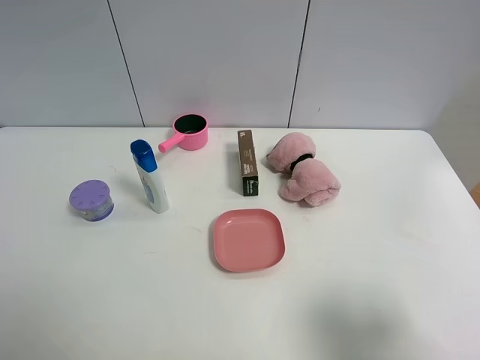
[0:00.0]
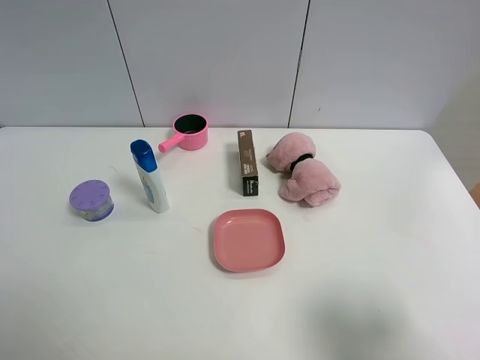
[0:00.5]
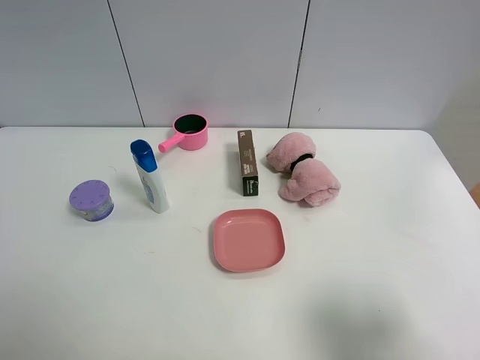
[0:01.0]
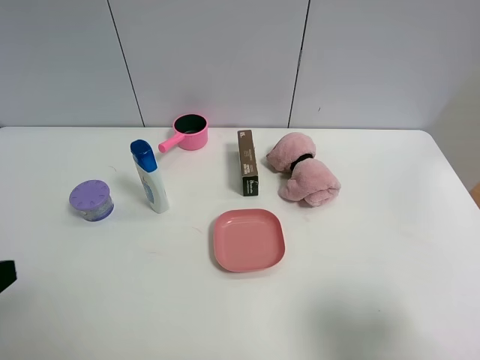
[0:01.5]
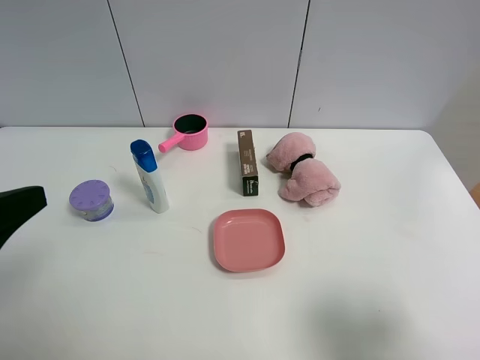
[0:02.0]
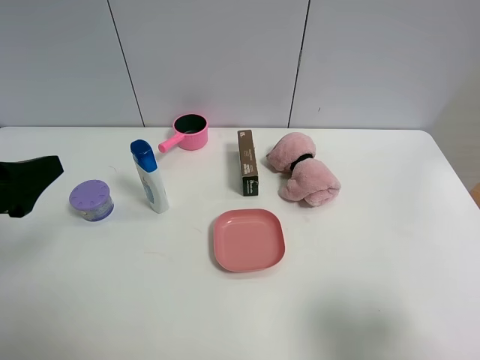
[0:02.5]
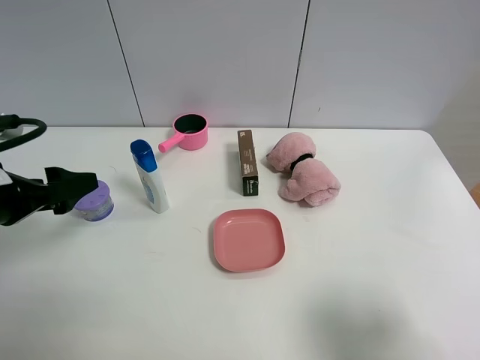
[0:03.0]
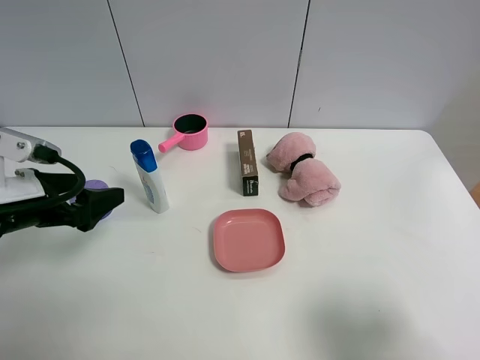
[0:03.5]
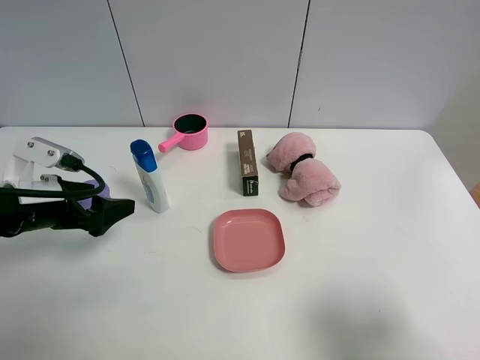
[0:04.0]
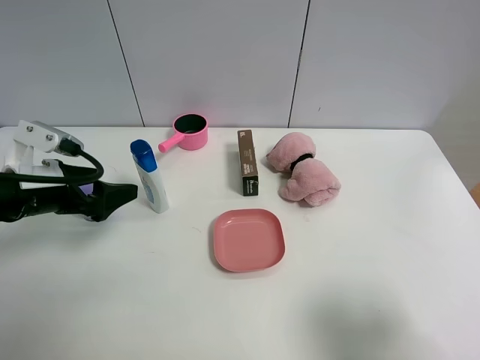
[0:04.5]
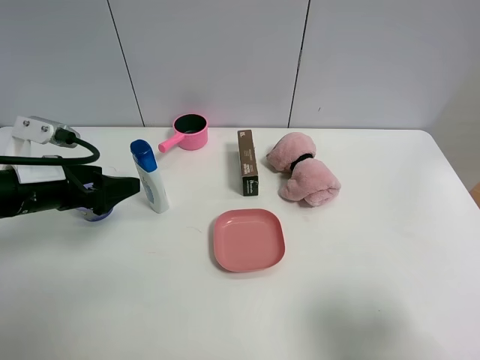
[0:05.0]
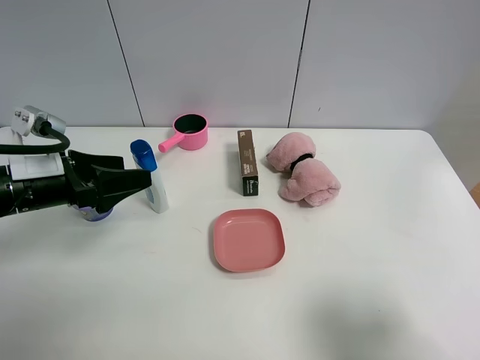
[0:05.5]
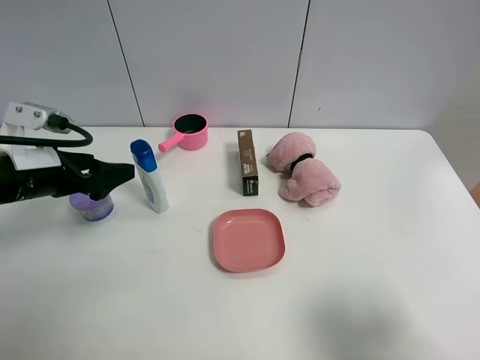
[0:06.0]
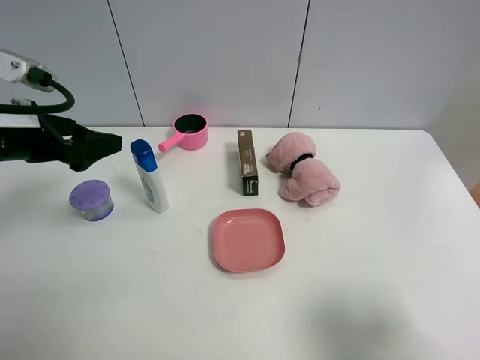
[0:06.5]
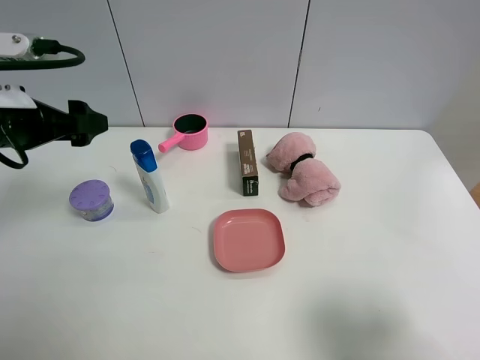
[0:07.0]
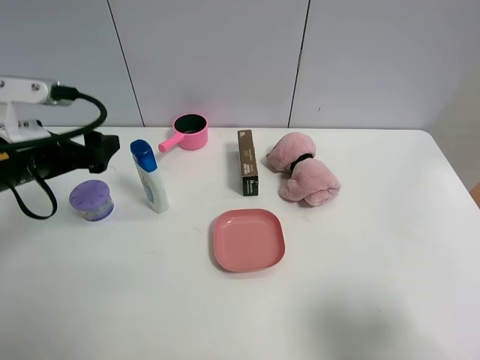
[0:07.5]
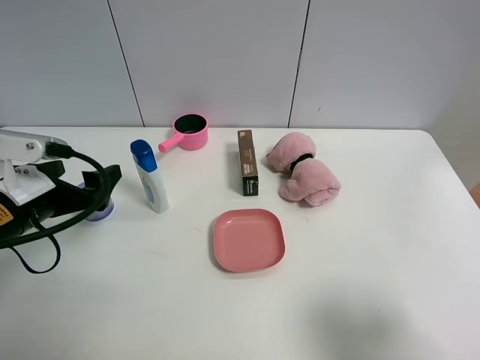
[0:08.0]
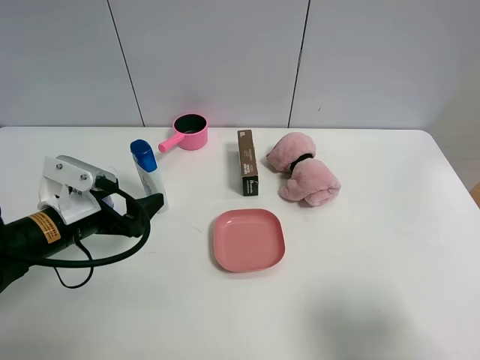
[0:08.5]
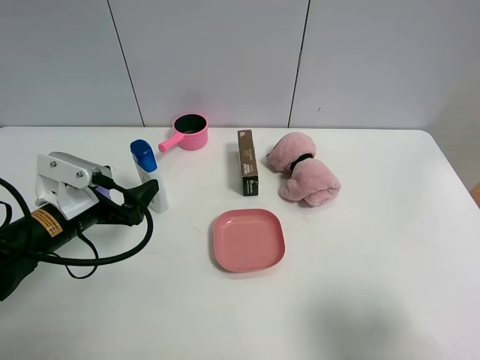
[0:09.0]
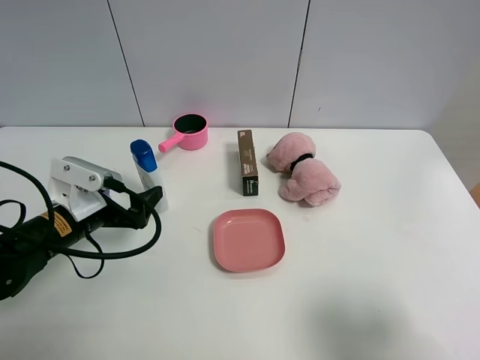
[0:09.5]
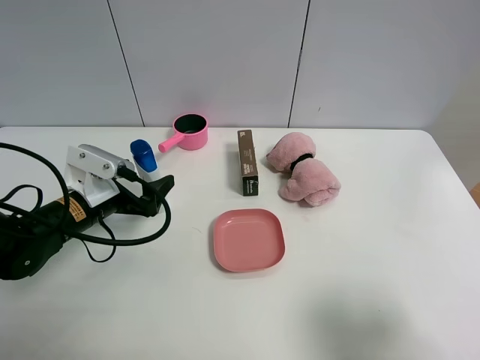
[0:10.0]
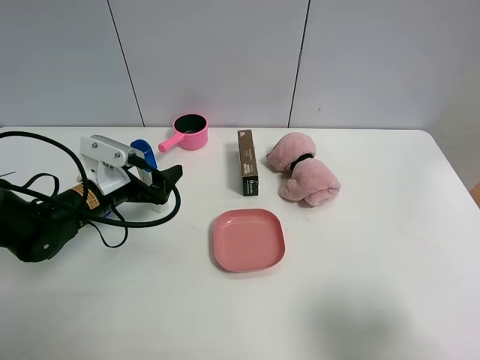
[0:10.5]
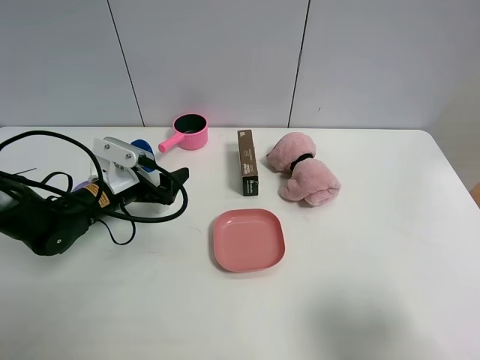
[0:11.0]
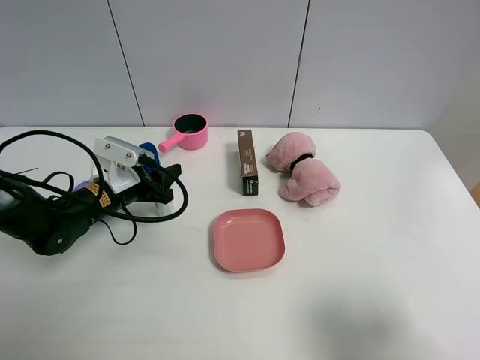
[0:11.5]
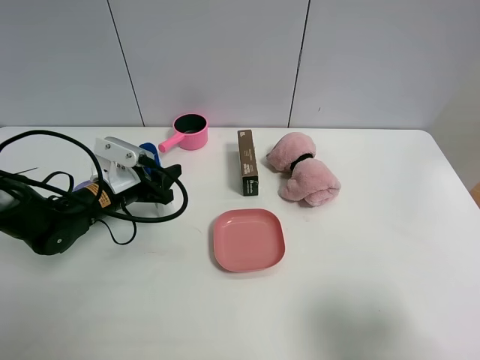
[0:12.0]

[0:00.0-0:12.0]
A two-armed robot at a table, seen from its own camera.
Task of the whole recording: the gripper move the object.
Step, 0.0 to 11.5 s: Grasp the shampoo with the left gripper.
0.0 to 2.0 s: The left gripper shifts roughly 10 cm forward.
2.0 to 4.0 s: The left gripper shifts roughly 20 cm downward and forward.
6.0 to 8.0 s: The left gripper reaches some 10 cm upward, then returns.
8.0 to 10.0 s: The left gripper goes about 10 cm downward and forward.
10.0 to 12.0 s: The left gripper closes its fingers.

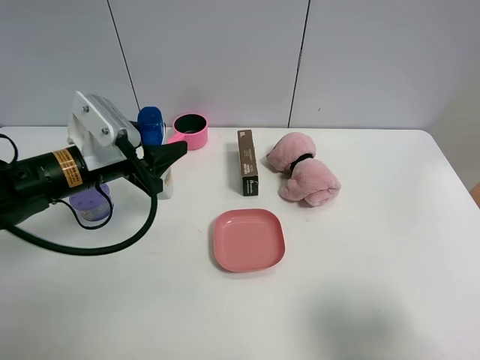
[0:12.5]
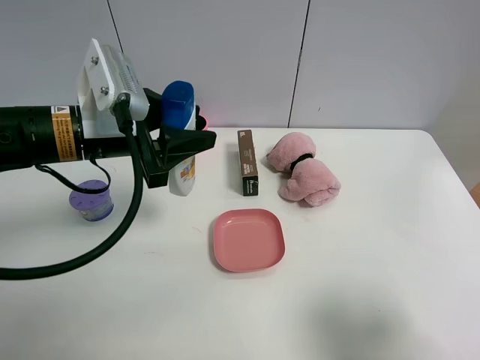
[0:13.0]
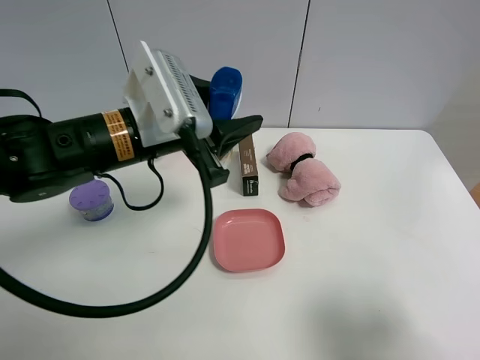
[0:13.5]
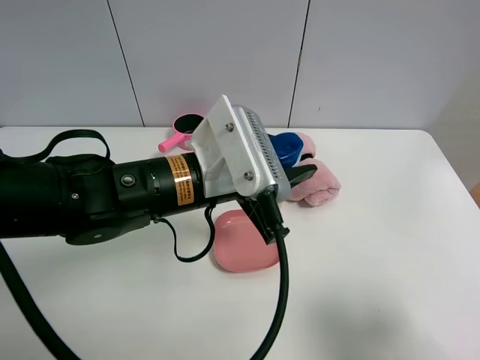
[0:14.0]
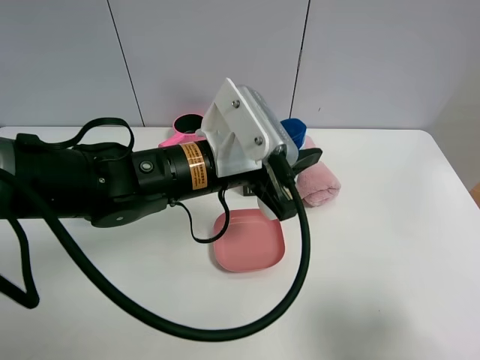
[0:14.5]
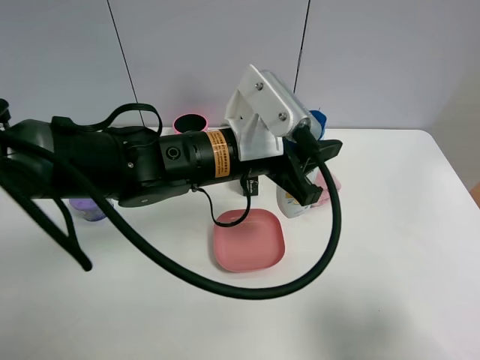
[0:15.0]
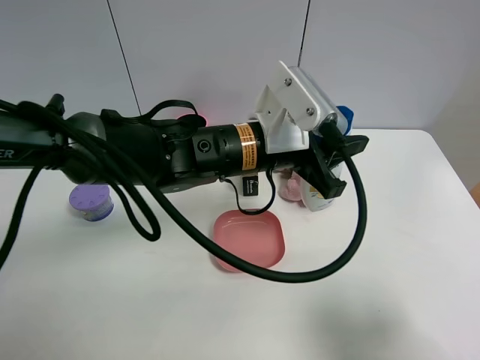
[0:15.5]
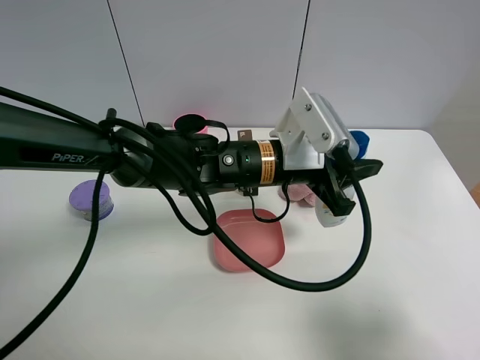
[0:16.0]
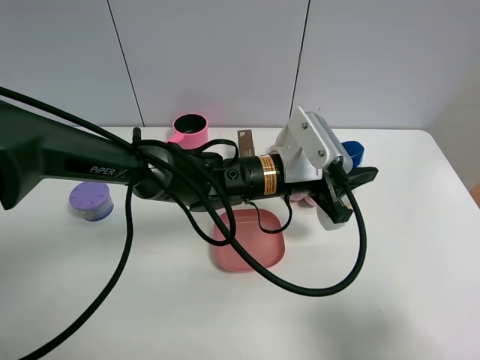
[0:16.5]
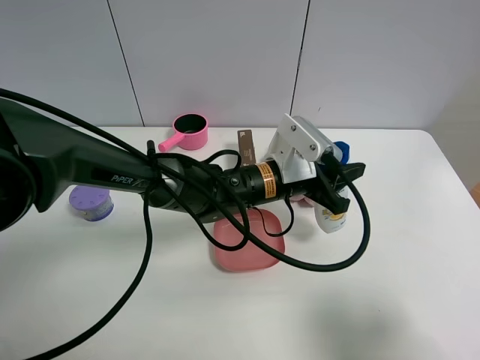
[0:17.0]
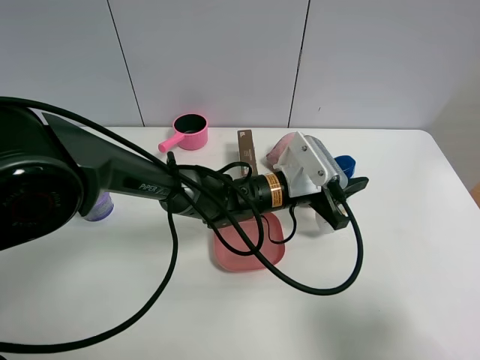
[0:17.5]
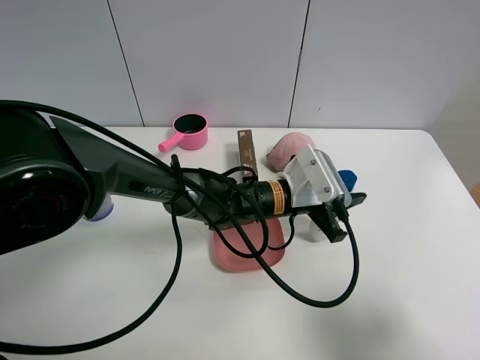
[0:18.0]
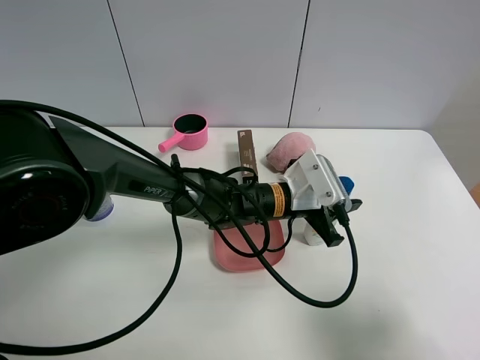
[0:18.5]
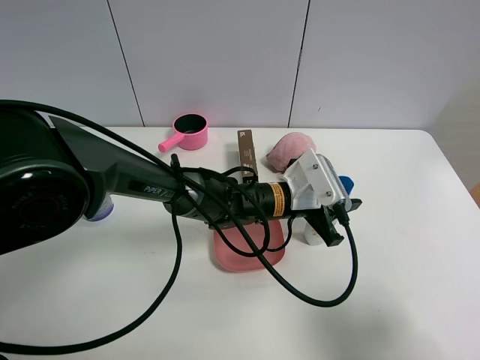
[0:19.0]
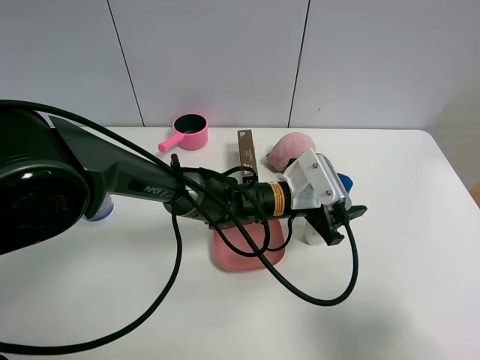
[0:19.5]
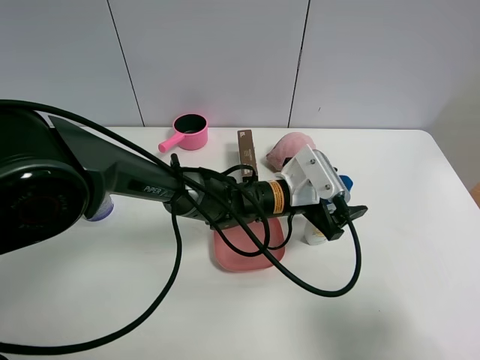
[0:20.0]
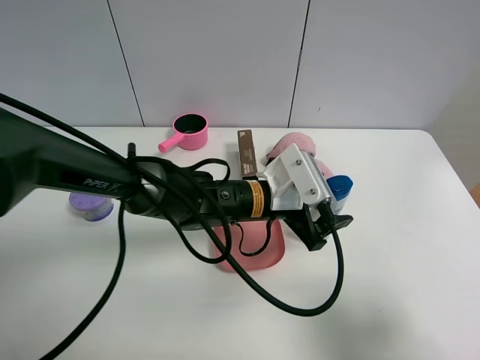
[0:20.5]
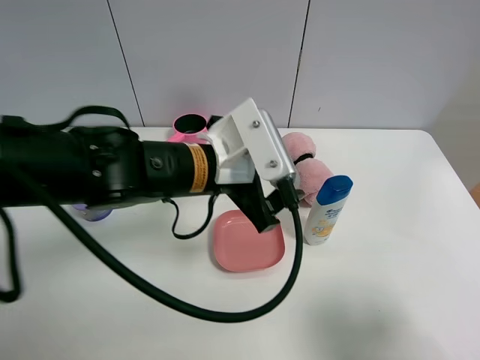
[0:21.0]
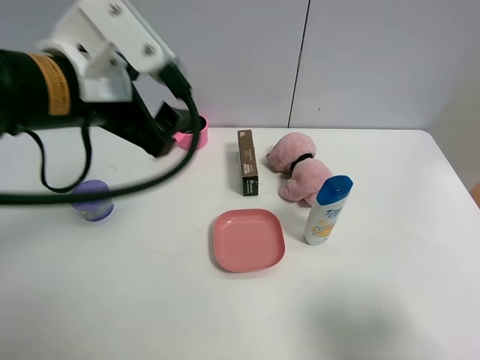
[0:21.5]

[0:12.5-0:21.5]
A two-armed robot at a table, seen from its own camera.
Task of the whole recording: the gripper move the object.
Step, 12.5 to 20.0 s: Place the shampoo on the table with the left gripper.
12.5 to 14.5 s: The left gripper heads to the right, covering roughly 15 cm.
14.5 to 17.0 s: The left gripper goes some 15 cm downward, to the right and forward.
17.0 to 19.5 s: The left gripper opens up.
19.5 to 21.5 s: The left gripper heads upward and to the left, covering some 35 cm.

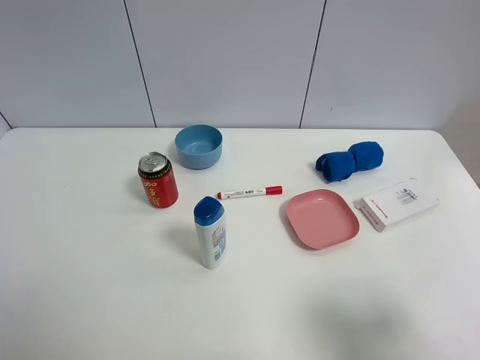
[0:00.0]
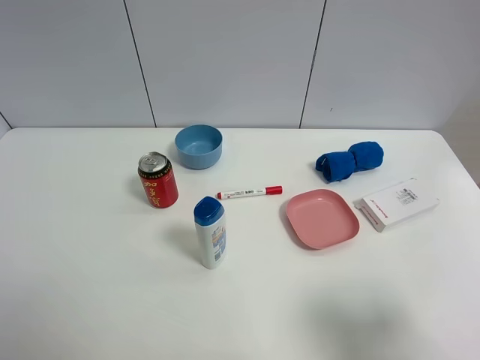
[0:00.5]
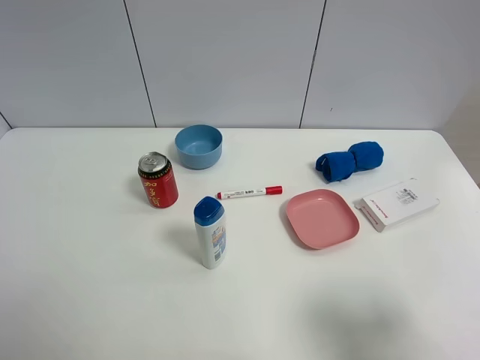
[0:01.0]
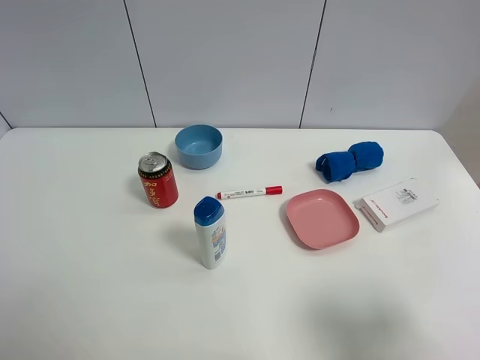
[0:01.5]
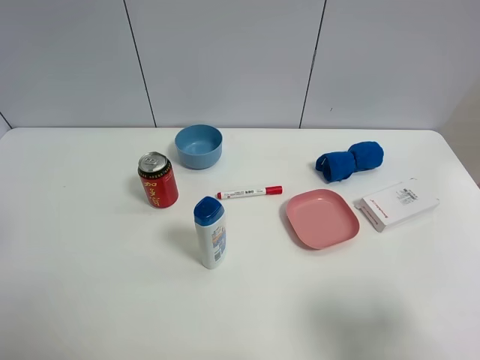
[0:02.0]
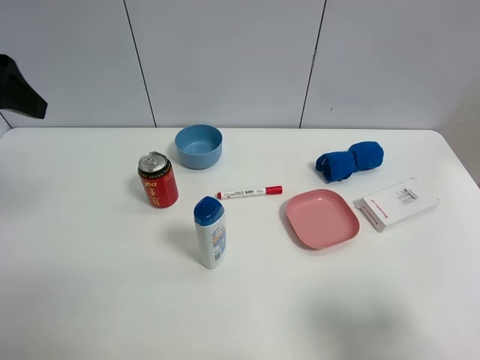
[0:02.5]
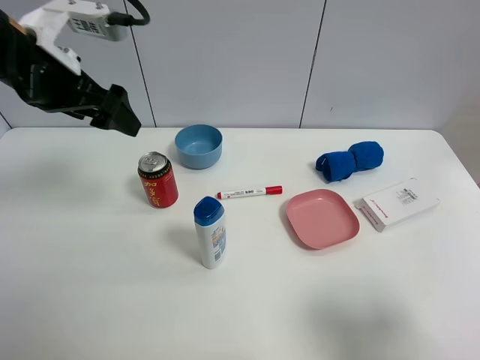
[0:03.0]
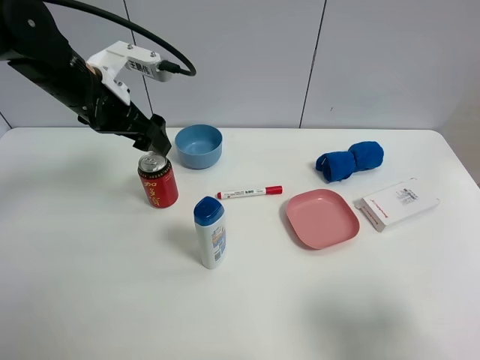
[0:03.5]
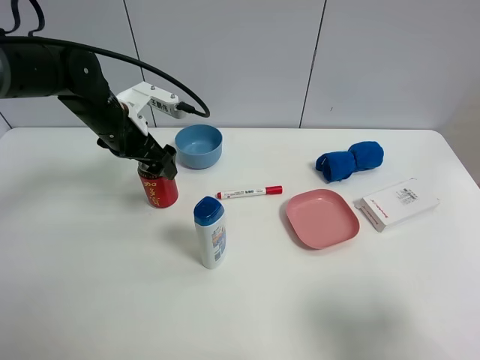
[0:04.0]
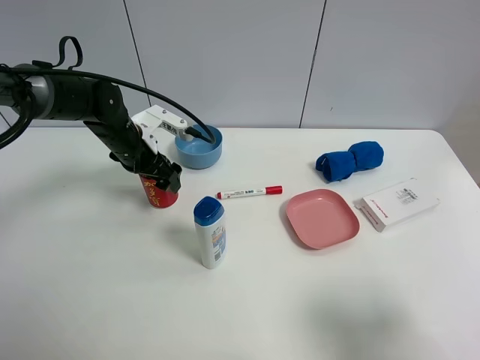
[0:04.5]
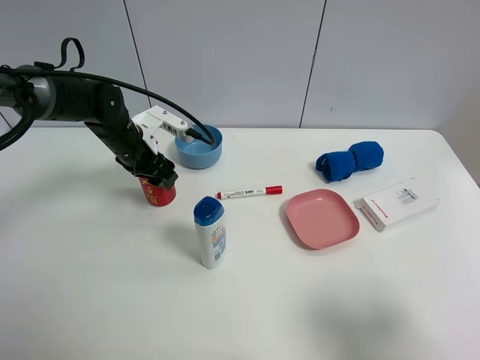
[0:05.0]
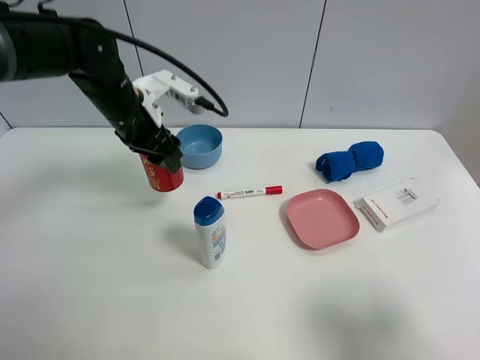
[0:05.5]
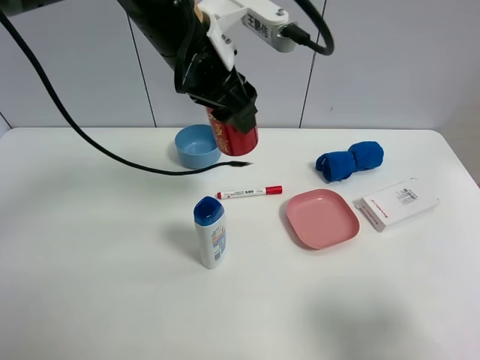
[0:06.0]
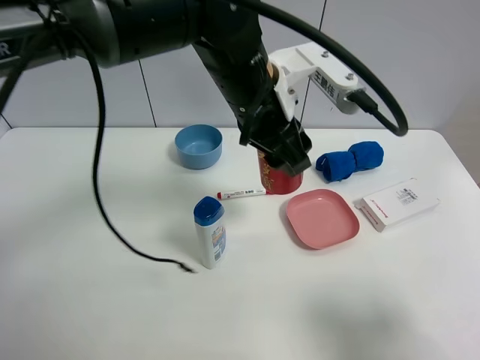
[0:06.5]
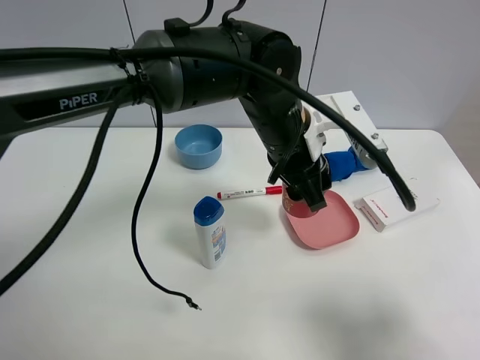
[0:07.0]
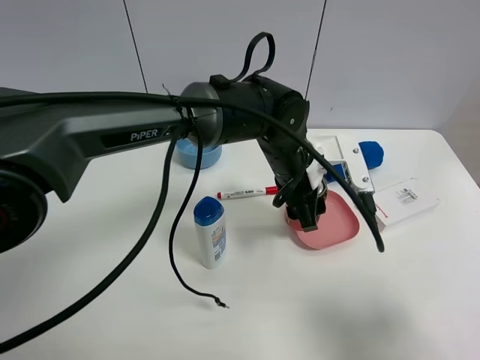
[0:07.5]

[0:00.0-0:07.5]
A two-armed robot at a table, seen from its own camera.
Task of the whole recording: the gripper move the object.
Step, 0.0 to 5.0 s: Grasp the Jia Duo Bao with the left gripper.
2.0 to 4.0 s: The left gripper shifts about 35 cm forward, downward and to the right.
4.0 to 5.5 s: The left gripper shifts approximately 5 cm upward, and closes.
5.5 to 7.5 s: The left gripper travels to the right by some 20 cm.
